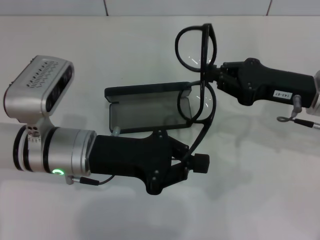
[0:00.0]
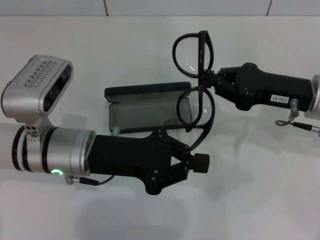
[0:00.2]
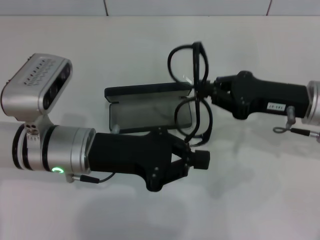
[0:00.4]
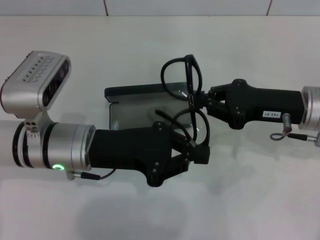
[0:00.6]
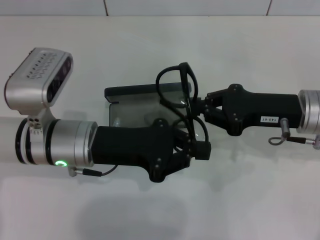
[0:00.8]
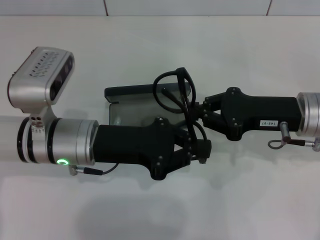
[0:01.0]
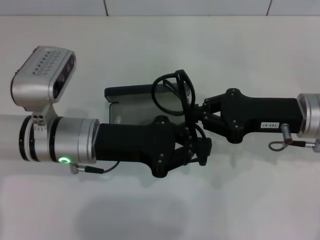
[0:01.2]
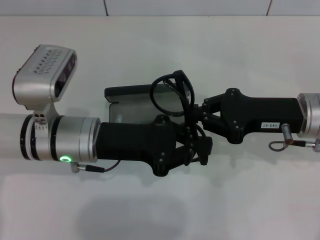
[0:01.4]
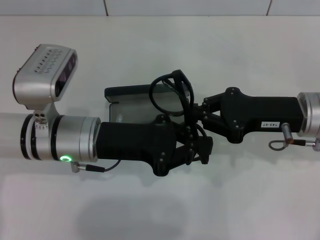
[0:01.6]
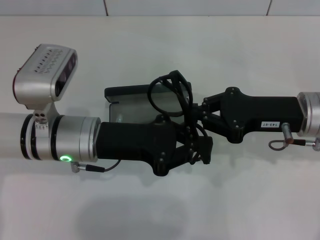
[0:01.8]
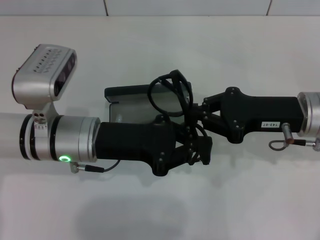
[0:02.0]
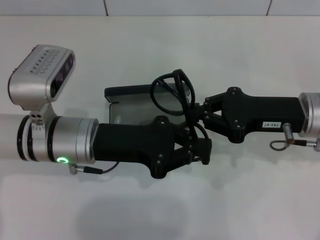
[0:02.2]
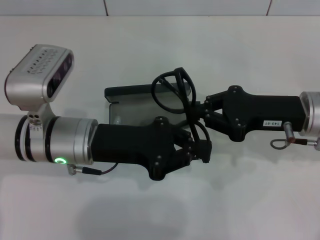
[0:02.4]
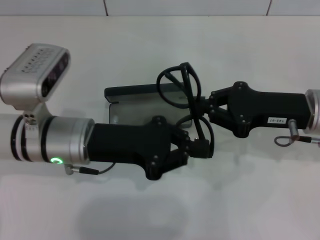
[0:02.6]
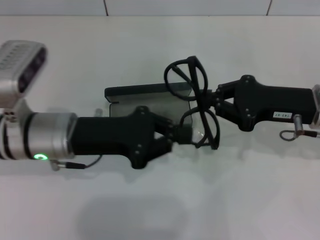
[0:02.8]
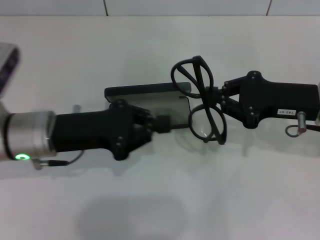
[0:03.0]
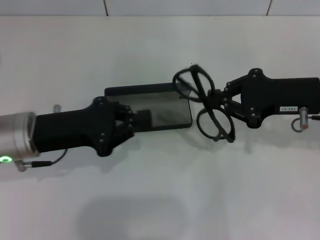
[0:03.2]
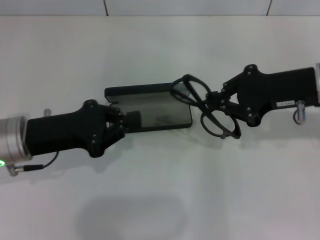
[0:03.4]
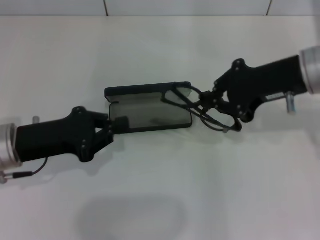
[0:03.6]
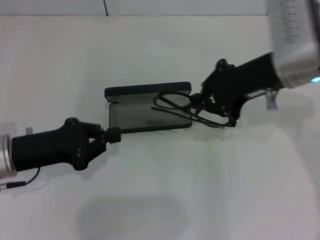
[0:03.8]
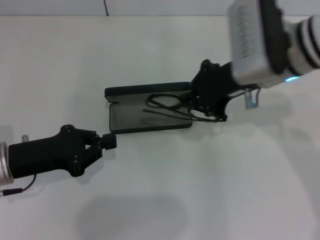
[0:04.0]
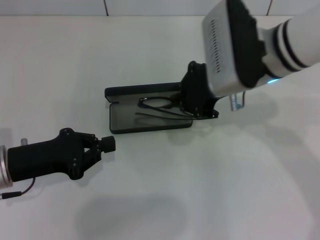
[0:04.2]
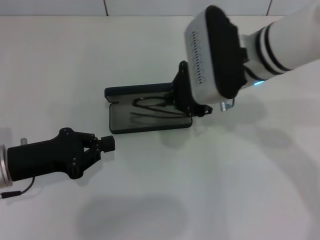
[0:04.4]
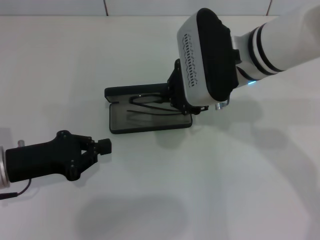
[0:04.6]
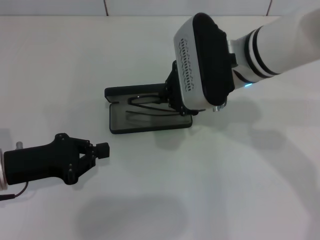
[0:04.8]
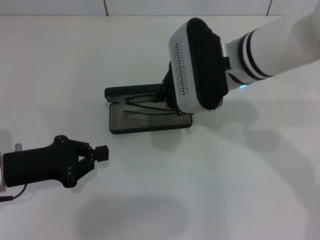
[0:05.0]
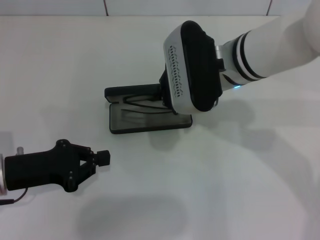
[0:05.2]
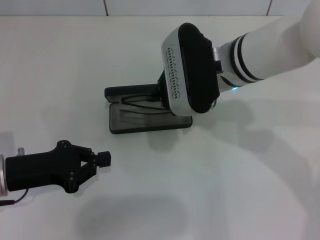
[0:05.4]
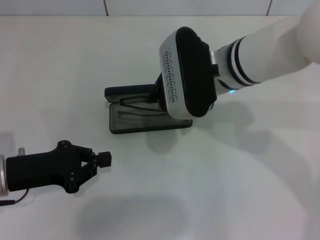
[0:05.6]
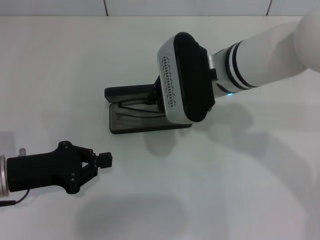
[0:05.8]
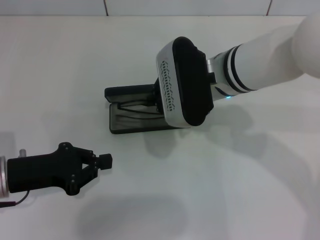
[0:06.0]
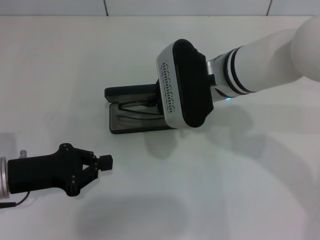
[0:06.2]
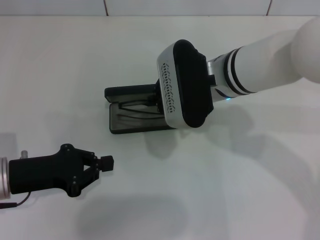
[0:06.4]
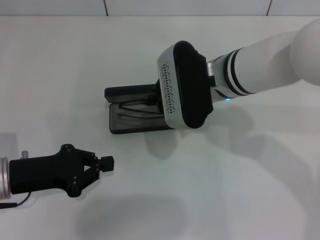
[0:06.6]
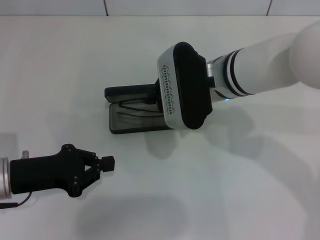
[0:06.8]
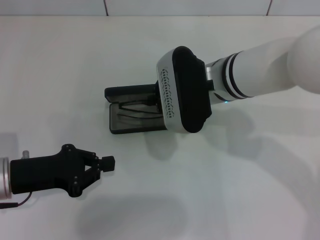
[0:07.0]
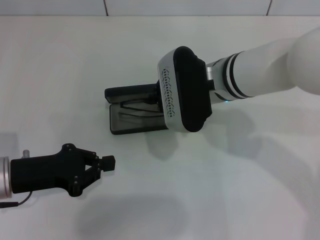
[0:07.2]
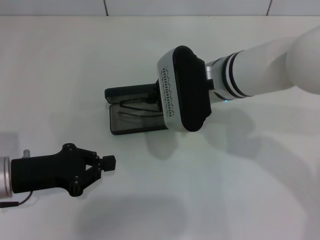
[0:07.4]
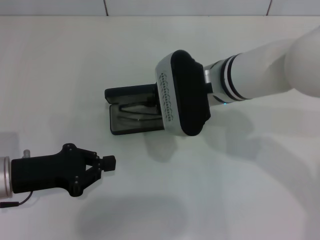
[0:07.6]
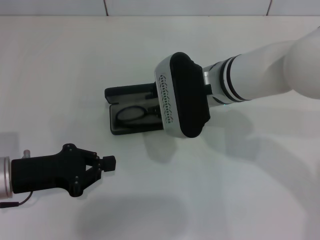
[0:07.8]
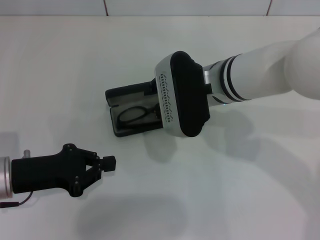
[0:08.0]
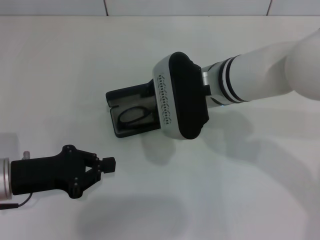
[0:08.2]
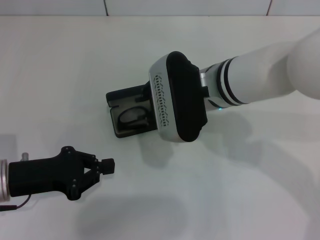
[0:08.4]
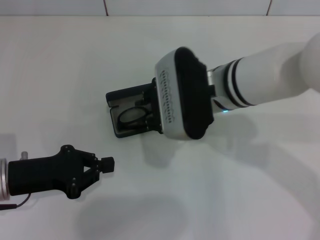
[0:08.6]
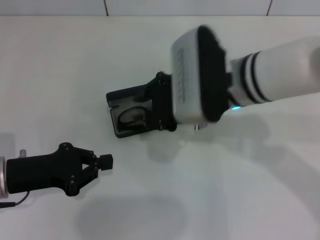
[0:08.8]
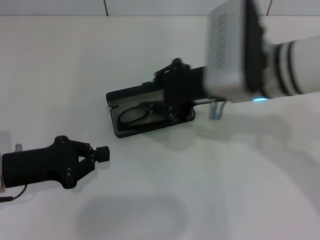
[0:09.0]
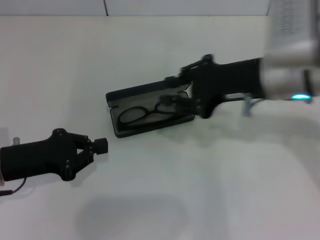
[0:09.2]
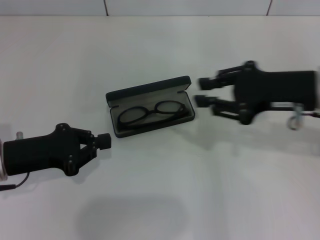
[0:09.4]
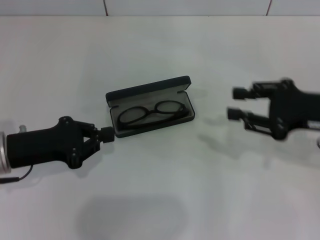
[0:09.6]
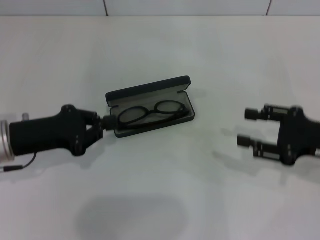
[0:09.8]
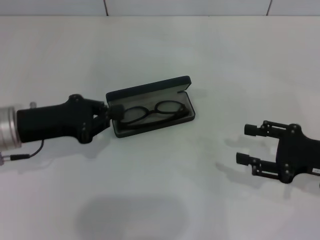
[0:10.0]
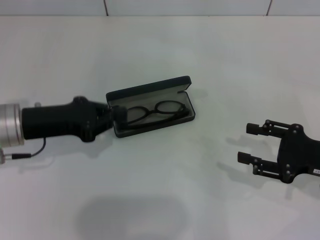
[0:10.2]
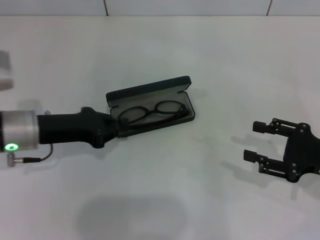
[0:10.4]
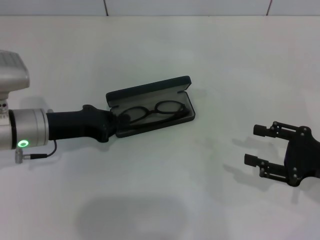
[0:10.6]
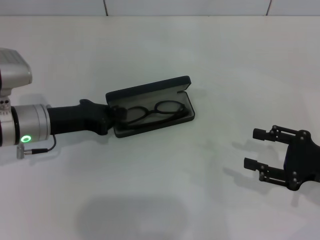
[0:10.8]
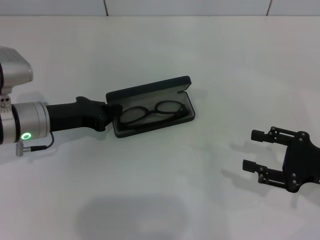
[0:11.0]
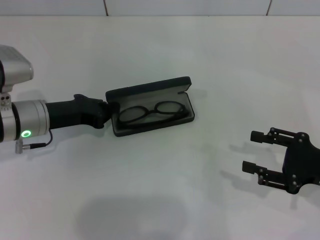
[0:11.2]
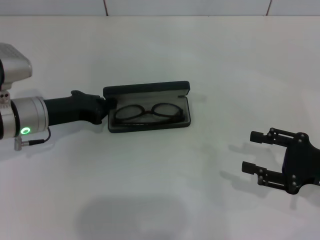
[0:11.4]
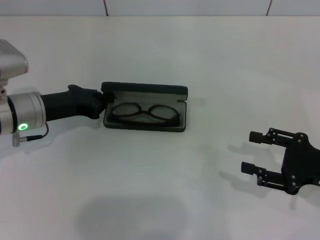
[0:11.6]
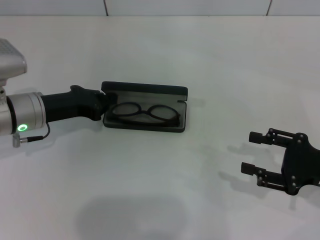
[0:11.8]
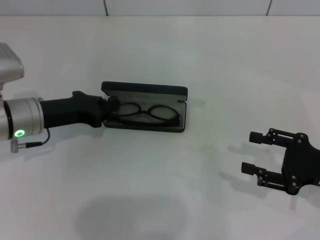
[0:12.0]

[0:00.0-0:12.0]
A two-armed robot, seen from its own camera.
Step, 0:01.8 to 0:08.2: Put the glasses into the case with your right hand.
0:01.6 to 0:03.0: The left gripper heads to the left, covering roughly 5 cm.
0:03.0 to 0:04.4: The right gripper shifts about 15 cm to the left and upward, while the left gripper heads to the left, covering about 5 cm.
0:04.4 to 0:07.6: The grippers stay close to where they were, moving slightly.
0:07.6 to 0:09.0: The right gripper moves about 5 cm.
0:09.0 to 0:10.4: The left gripper goes roughly 5 cm forward; the right gripper goes approximately 25 cm to the right and downward, and opens up.
0:10.4 to 0:12.0: There are only small adjustments of the grippers.

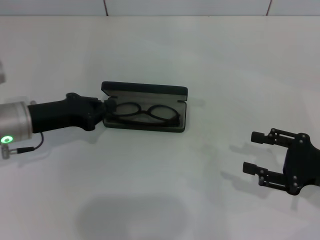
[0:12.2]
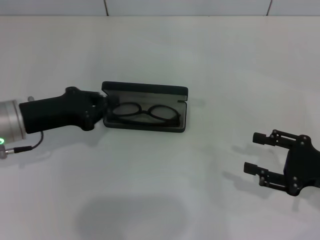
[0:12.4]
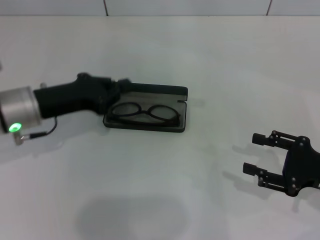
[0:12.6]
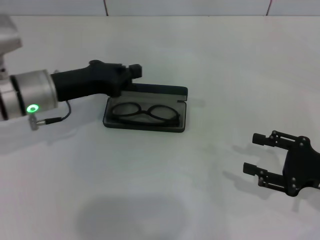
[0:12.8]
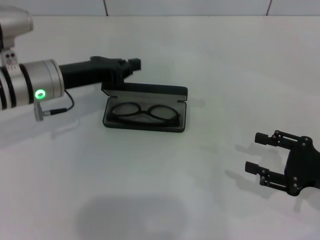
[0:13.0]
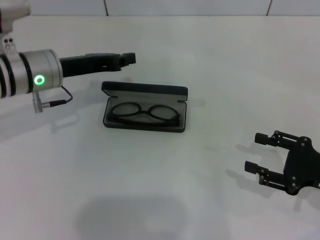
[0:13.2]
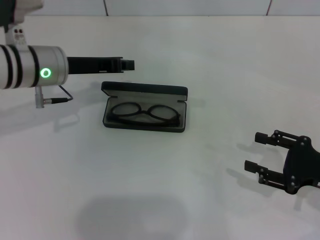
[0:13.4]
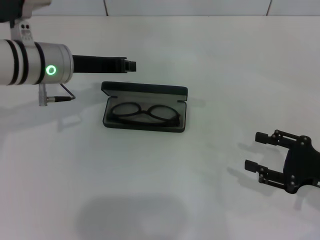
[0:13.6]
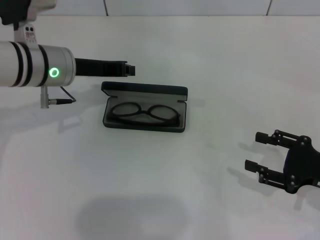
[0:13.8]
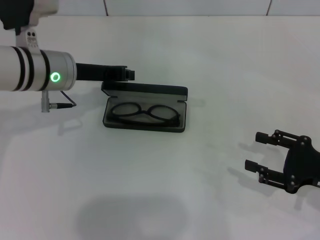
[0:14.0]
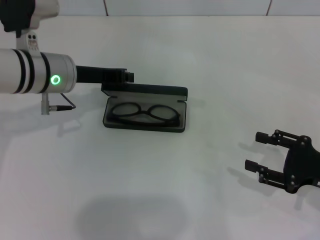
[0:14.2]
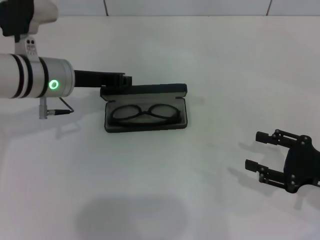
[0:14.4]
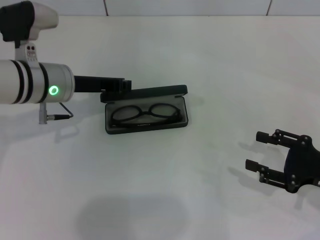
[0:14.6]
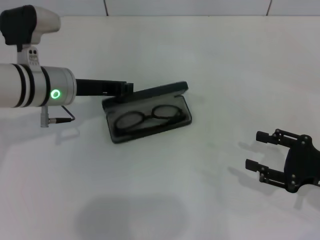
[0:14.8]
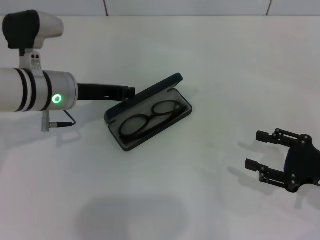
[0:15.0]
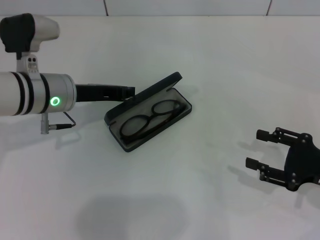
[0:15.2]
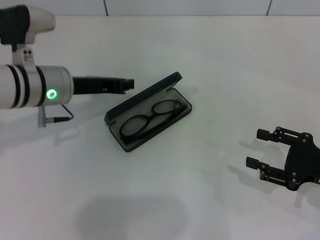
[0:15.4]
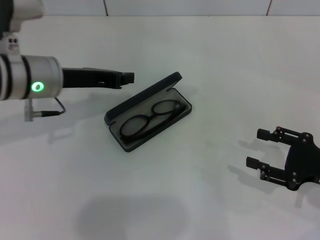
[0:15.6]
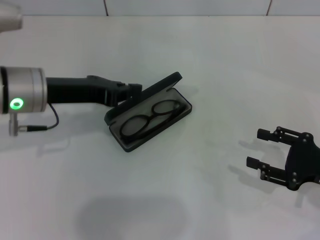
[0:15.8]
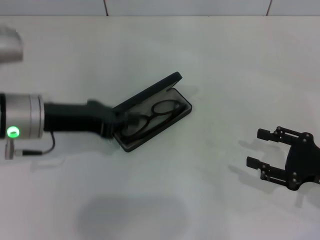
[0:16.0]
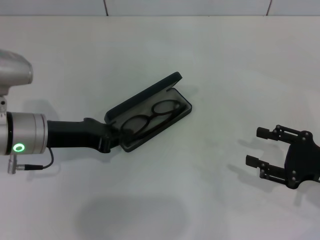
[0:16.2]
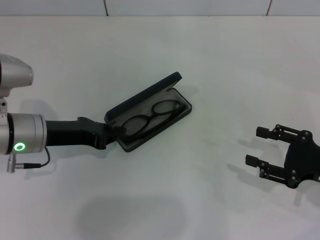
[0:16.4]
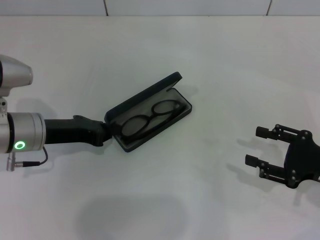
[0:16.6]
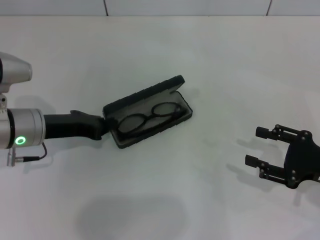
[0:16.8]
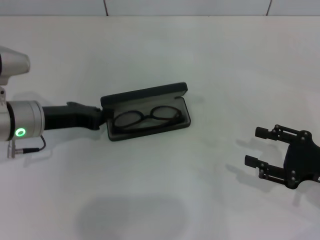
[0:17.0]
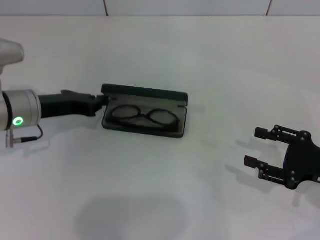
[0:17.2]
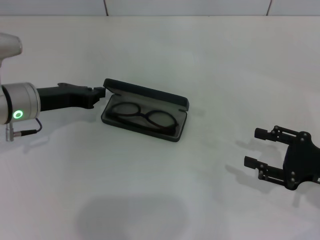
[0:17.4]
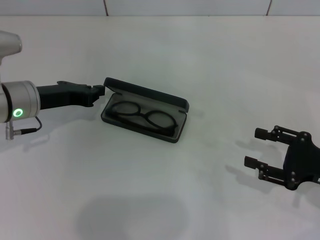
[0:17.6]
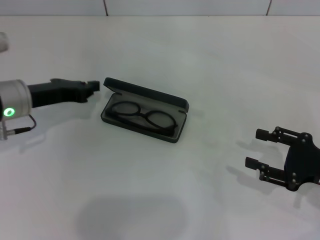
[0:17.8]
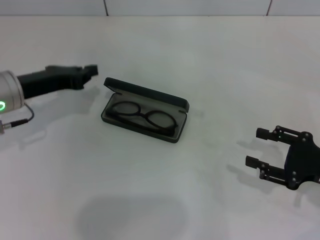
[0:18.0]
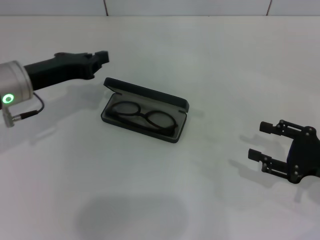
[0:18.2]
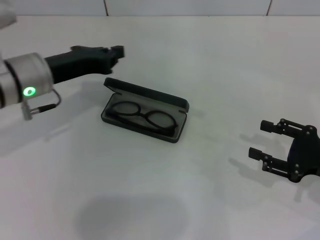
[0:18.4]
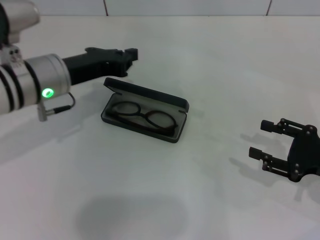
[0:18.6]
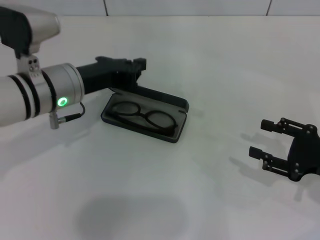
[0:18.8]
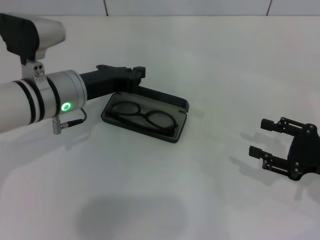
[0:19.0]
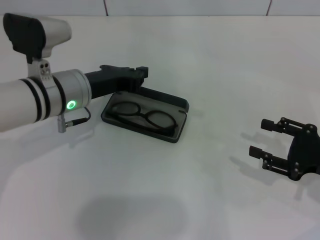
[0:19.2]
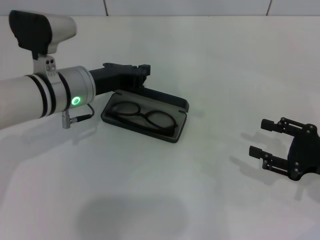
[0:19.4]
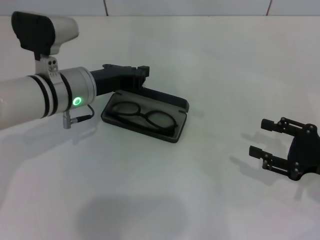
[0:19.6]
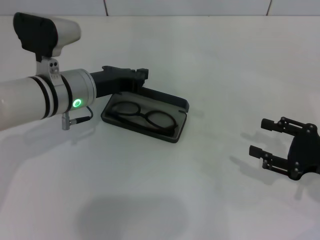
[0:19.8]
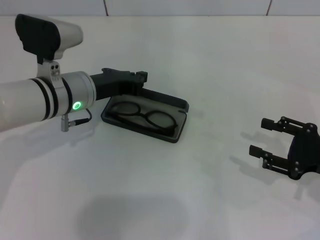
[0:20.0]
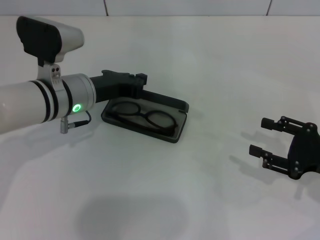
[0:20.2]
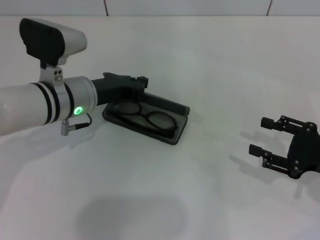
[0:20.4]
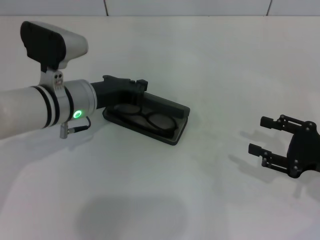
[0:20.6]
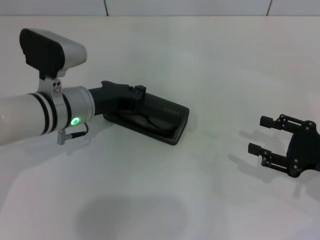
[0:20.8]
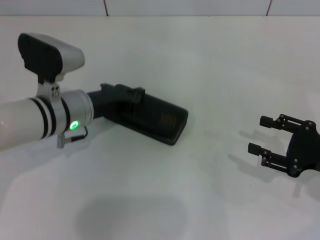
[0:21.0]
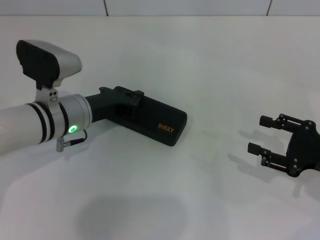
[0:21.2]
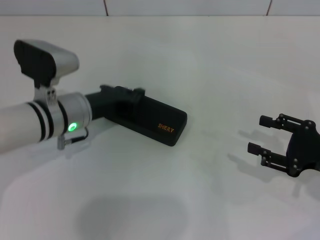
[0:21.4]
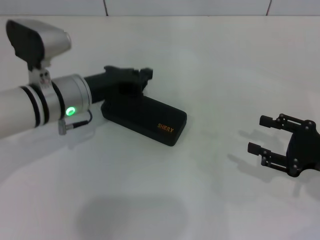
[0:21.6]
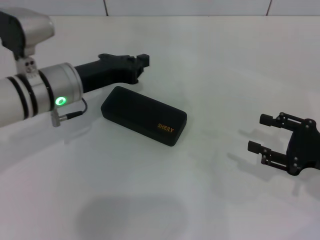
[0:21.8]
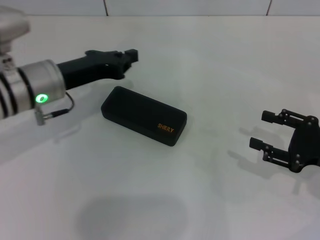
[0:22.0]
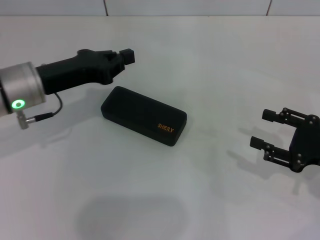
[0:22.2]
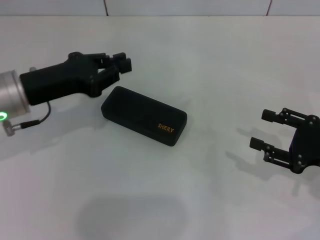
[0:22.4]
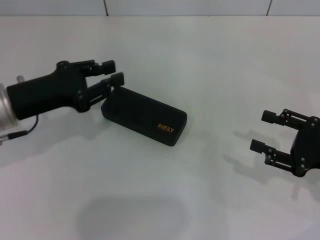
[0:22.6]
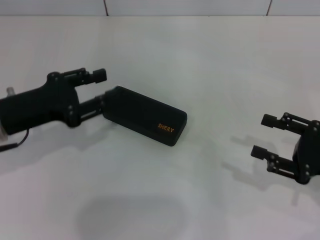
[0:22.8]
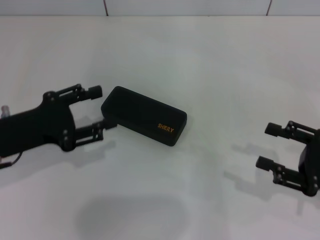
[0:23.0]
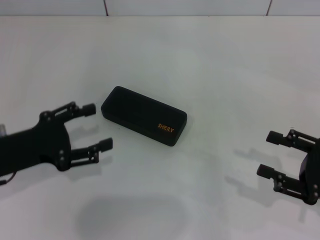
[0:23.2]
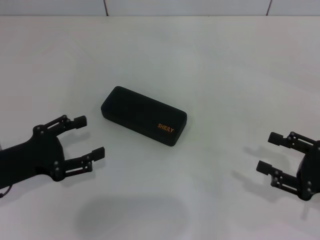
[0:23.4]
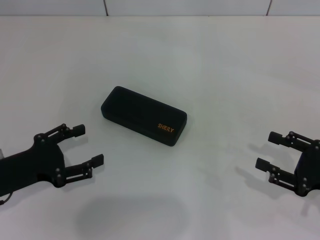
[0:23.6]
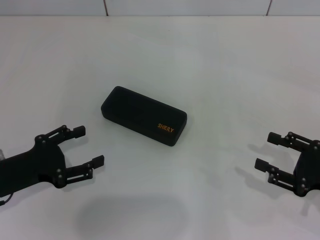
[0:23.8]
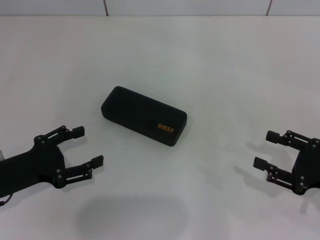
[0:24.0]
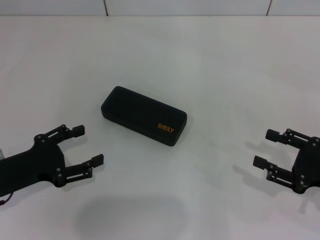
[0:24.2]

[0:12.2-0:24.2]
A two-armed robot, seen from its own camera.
Step, 0:12.2 to 0:21.0: Close the glasses case with your left hand.
0:12.2 to 0:13.8: The left gripper moves to the right, forward and upward, approximately 10 cm.
0:13.8 to 0:15.2: The grippers move only a little.
0:15.2 to 0:16.6: The left gripper moves about 5 cm.
0:16.6 to 0:18.2: The left gripper moves roughly 5 cm.
0:18.2 to 0:19.8: The left gripper moves to the right, approximately 10 cm.
0:19.8 to 0:21.2: The grippers stay close to where they were, moving slightly.
0:21.2 to 0:22.6: The left gripper travels to the left and upward by about 10 cm.
0:22.6 to 0:24.2: The left gripper shifts roughly 10 cm backward and downward, and opens its fingers.
